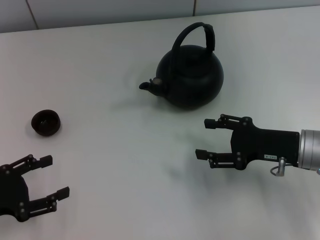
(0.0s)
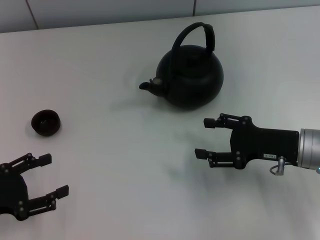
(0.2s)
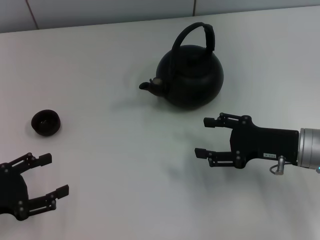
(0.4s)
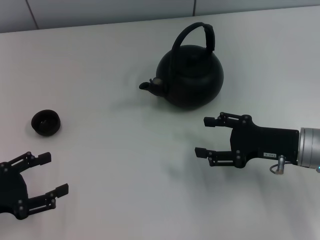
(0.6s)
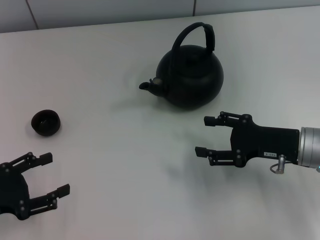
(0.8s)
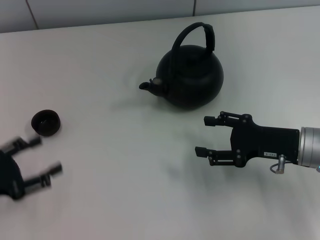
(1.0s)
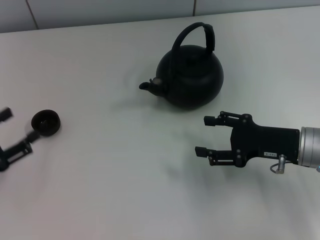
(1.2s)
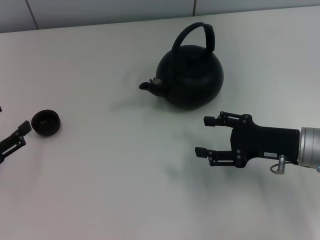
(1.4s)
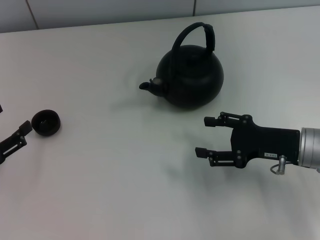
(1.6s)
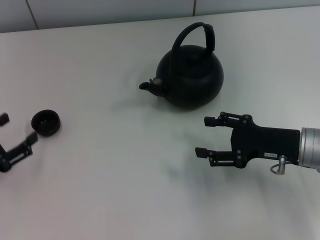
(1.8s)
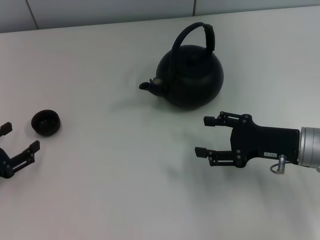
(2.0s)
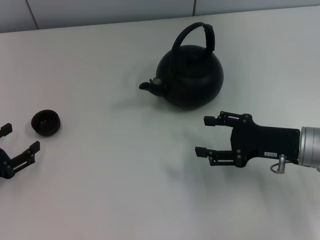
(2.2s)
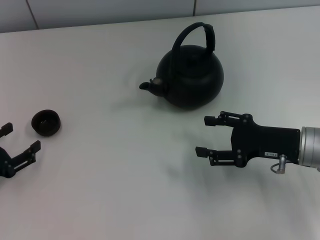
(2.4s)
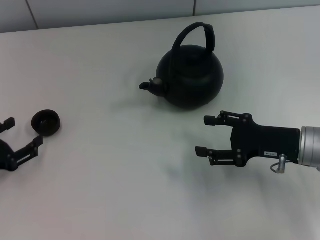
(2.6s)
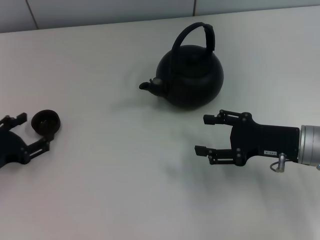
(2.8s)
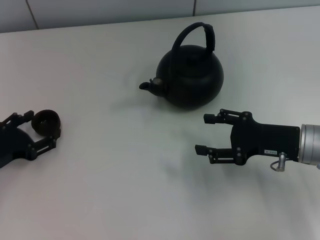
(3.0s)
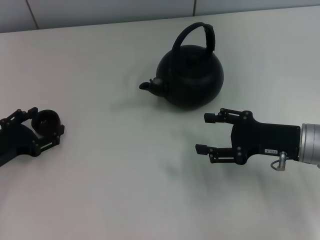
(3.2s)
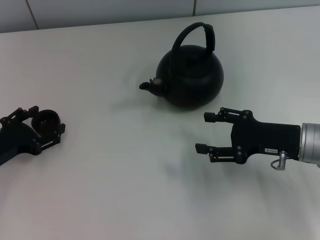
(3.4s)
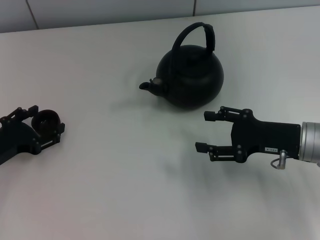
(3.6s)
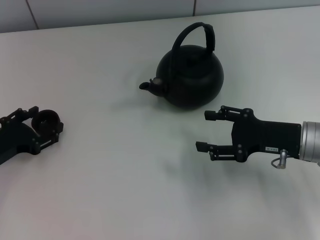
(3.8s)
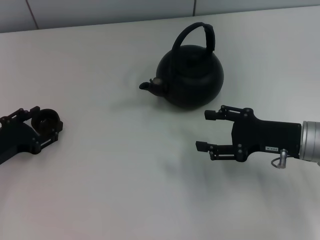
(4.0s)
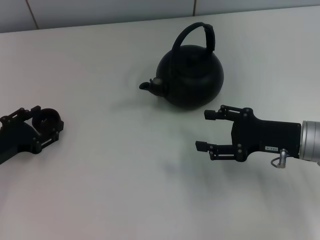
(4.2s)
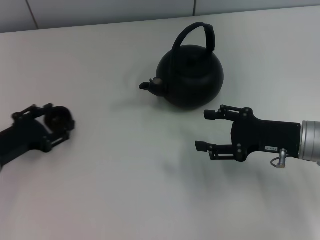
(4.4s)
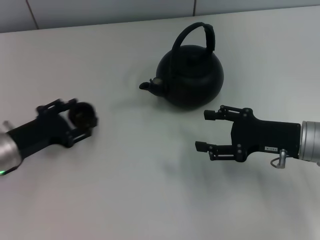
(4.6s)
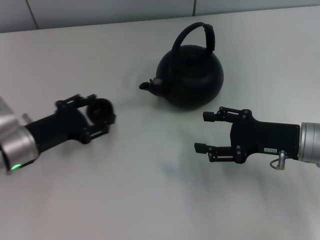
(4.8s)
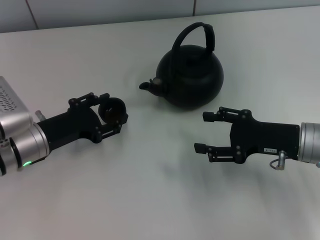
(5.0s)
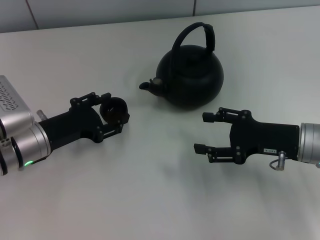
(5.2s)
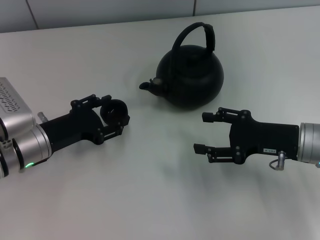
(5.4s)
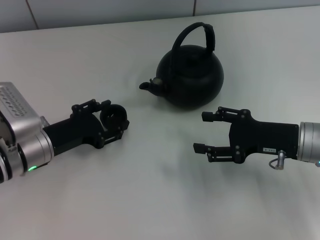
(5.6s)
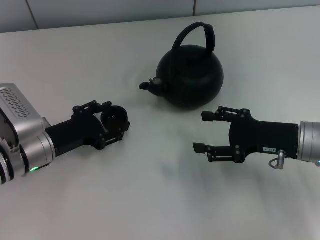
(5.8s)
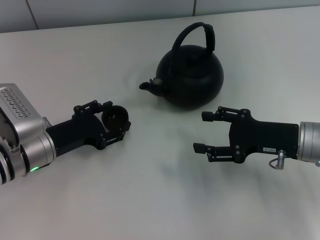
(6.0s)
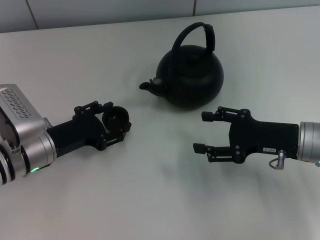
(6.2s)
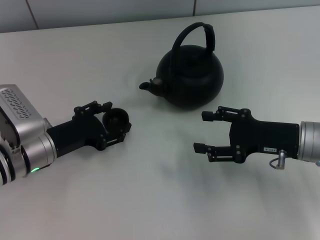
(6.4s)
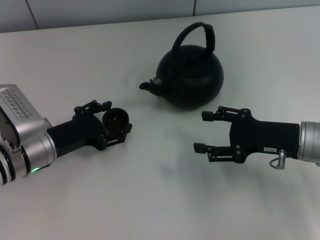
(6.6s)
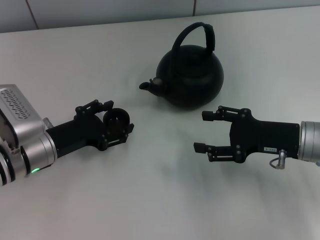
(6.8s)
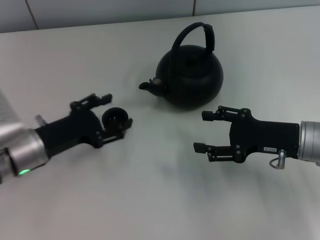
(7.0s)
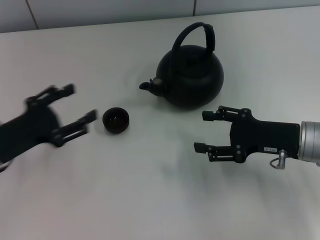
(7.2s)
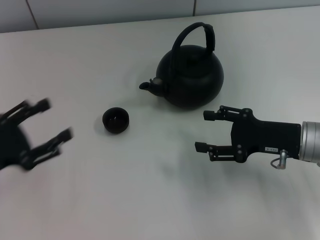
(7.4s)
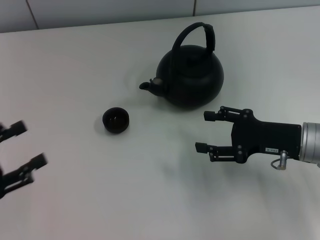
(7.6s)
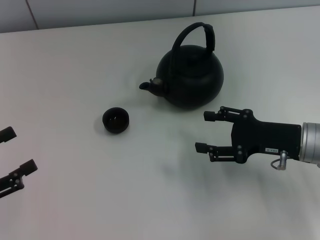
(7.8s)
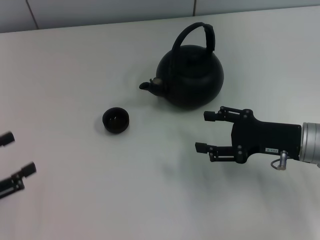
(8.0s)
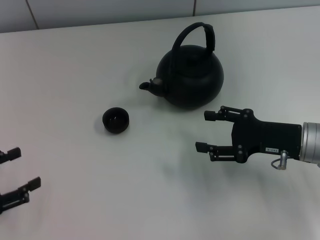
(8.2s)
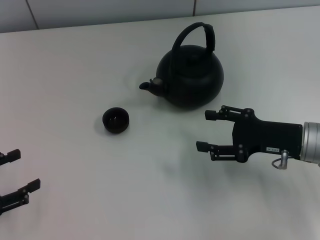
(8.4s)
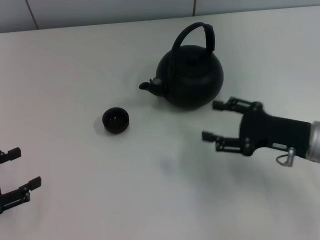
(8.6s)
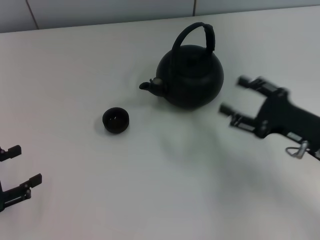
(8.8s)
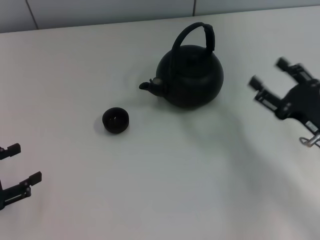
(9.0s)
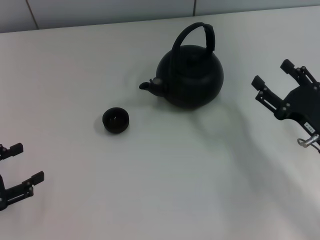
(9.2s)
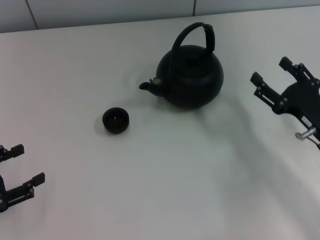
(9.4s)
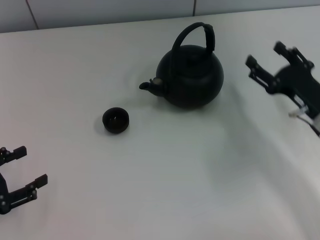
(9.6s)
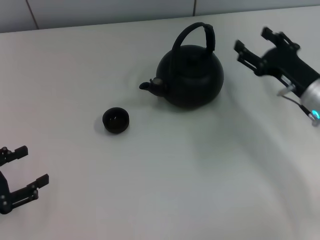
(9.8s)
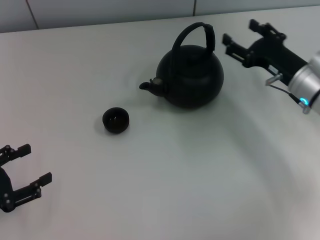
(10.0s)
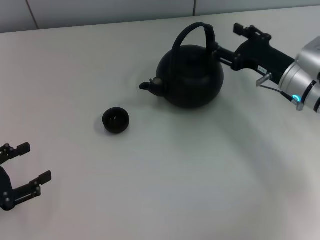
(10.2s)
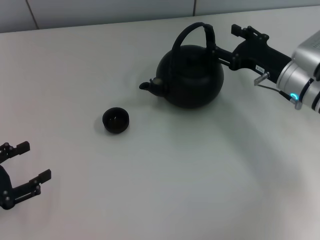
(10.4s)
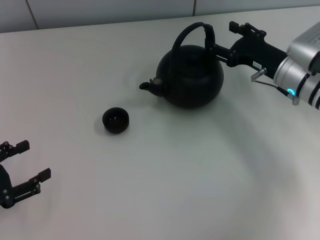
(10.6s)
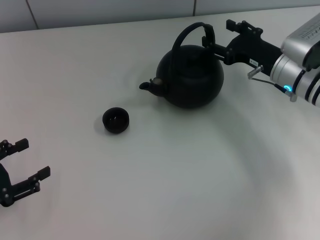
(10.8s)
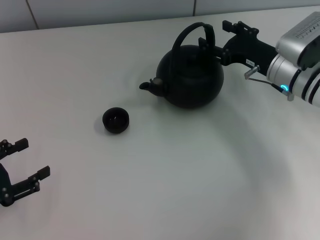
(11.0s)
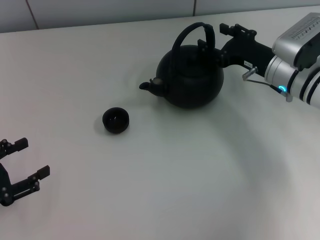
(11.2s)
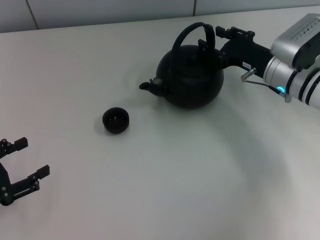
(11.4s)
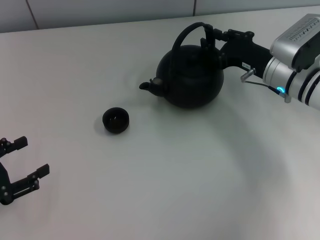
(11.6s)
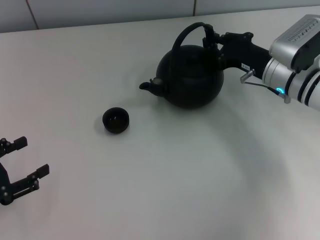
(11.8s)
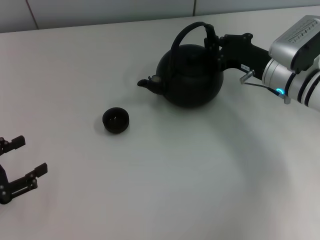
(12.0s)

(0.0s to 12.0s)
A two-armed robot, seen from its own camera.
Task of the whole recording: Grasp the handle of the teapot with one hand and pour tea into the teacup.
Step, 0.0s - 4.4s: Pick up the teacup with the left gripper.
Step, 4.6s - 7.2s: Place the teacup in the center of view with the left gripper.
1.6s - 3.0s: The left gripper ends up roughly 5 cm from where it was, and closes its fingers.
3.0s - 4.4s: The grippers stay close to where they were, moving slightly.
4.4s - 6.0s: The left gripper moves to the right, approximately 10 cm.
6.0s - 7.6s: The left gripper heads to the left and backward, covering approximately 15 cm, and opens.
7.6s - 9.0s: The right gripper ends up some 5 cm from where it was.
9.0s - 10.4s: The right gripper shifts approximately 15 cm forward.
10.4s - 12.0s: The right gripper closes.

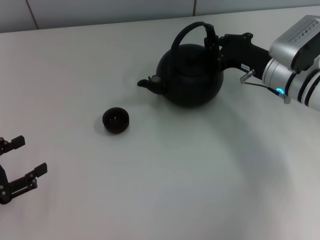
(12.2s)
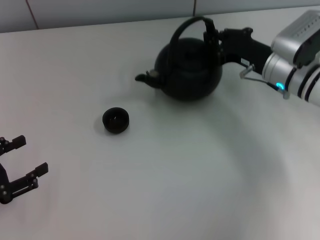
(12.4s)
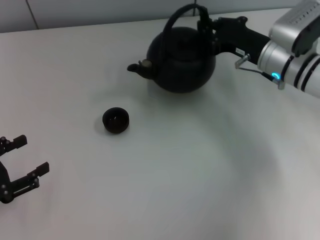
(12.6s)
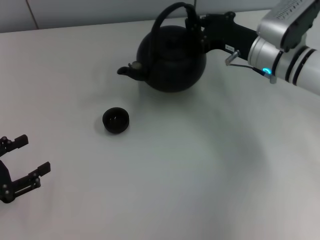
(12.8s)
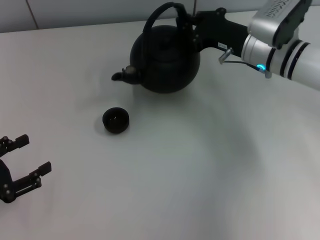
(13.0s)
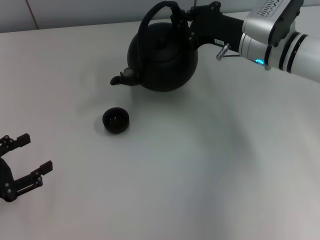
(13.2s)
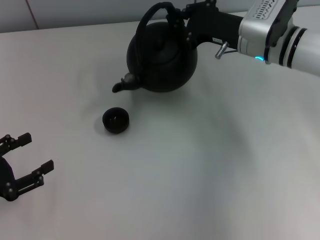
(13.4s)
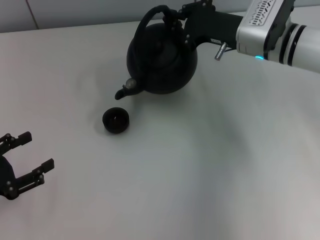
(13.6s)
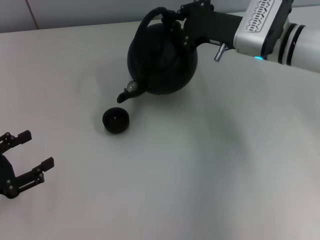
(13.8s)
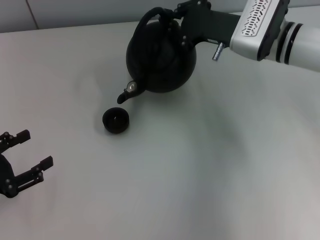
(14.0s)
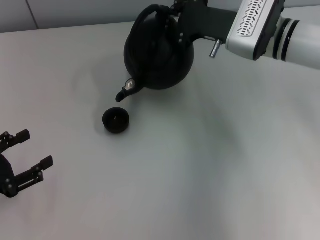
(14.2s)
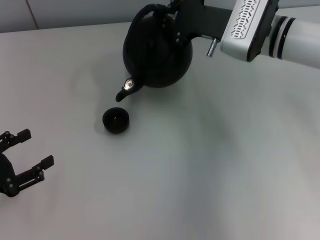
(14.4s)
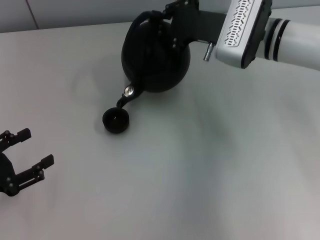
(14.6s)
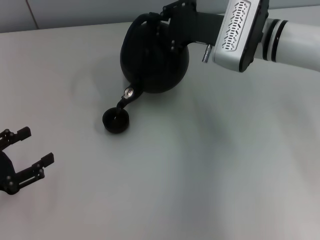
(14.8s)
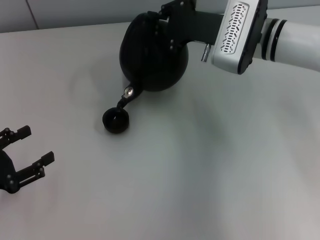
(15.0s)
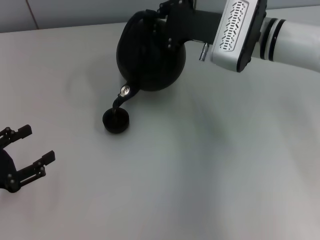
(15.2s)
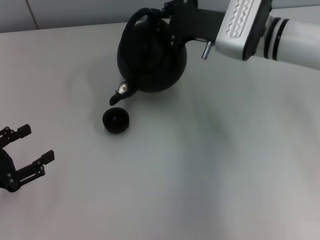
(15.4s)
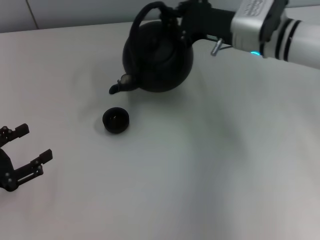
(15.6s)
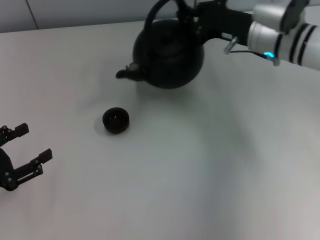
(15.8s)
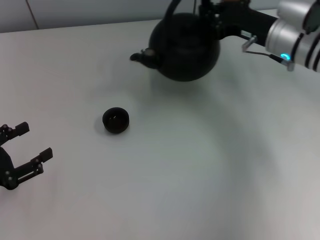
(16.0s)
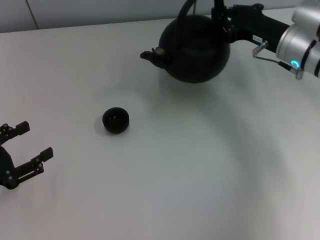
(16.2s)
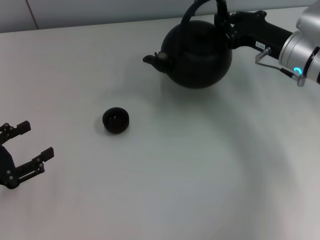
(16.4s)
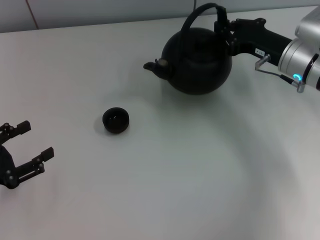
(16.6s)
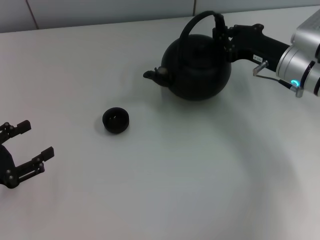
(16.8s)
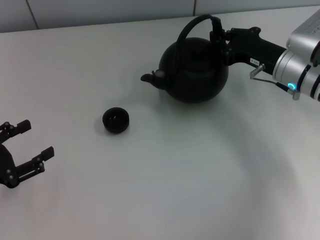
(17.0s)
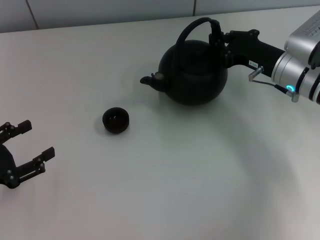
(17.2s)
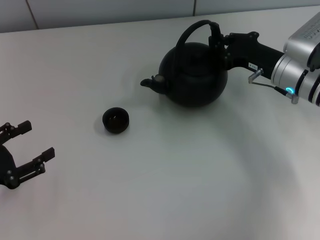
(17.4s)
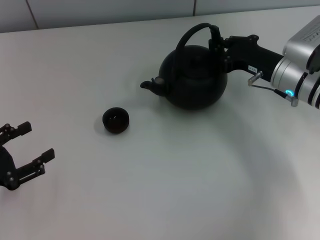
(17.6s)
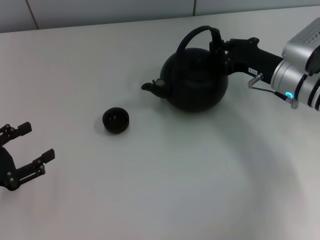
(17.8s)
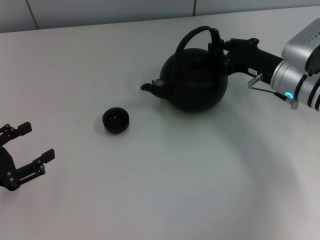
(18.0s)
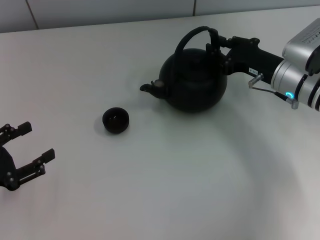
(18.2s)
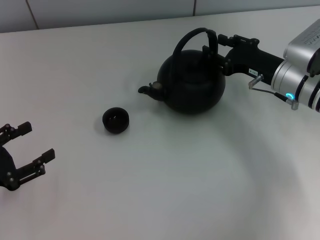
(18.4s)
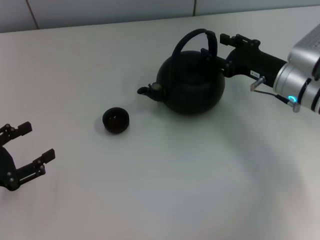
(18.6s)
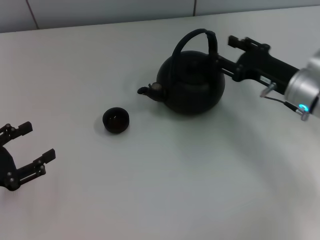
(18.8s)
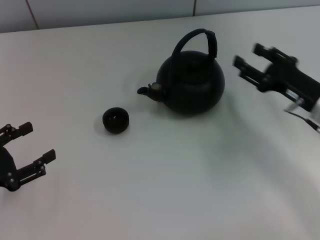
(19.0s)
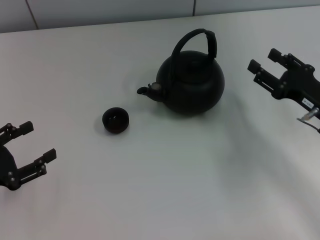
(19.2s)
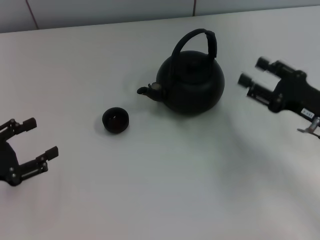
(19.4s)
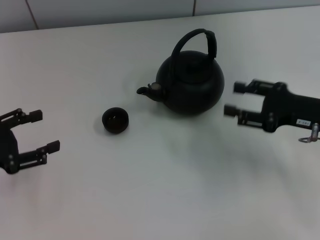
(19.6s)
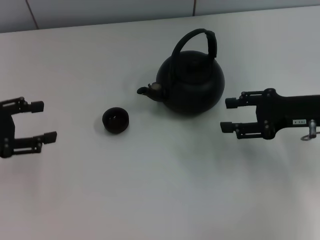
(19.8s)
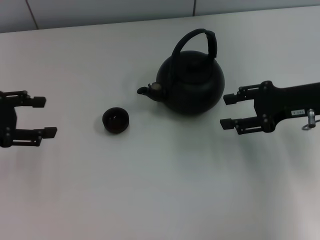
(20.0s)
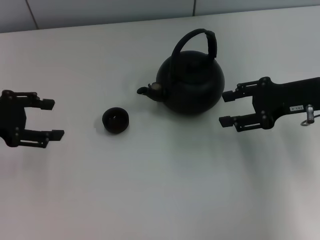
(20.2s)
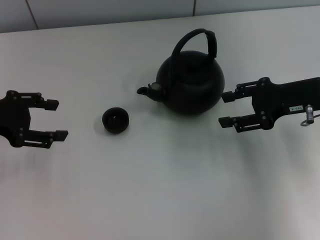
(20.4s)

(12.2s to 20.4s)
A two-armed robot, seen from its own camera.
Task of the whole recording: Grasp the handle of the teapot with one hand and pour tea into the teacup.
Step, 16.2s - 18.6s: Put down the teapot with the right gripper.
12.2s - 13.8s: The right gripper is displaced upward by about 5 cm.
13.8s - 15.4s: The grippers make only small movements.
15.4s - 17.2s: The right gripper goes roughly 10 cm to the right and downward.
17.2s - 18.8s: The right gripper opens.
18.8s - 20.4s: The left gripper is displaced forward and upward by about 15 cm, while the right gripper heads upward, covering some 5 cm.

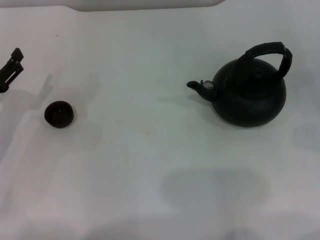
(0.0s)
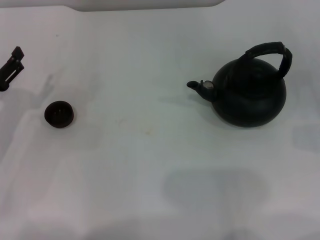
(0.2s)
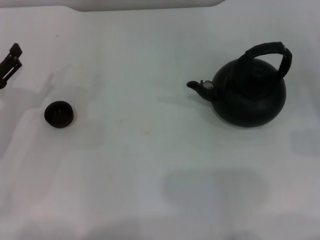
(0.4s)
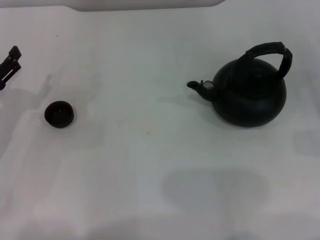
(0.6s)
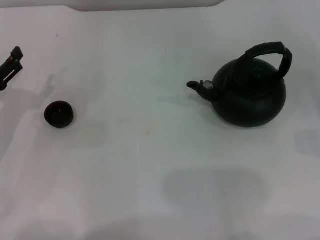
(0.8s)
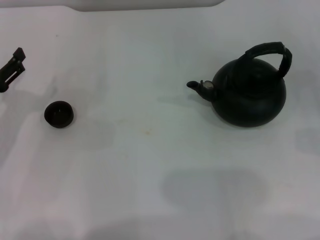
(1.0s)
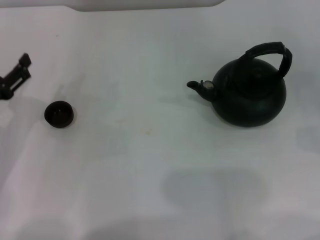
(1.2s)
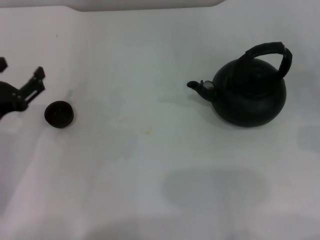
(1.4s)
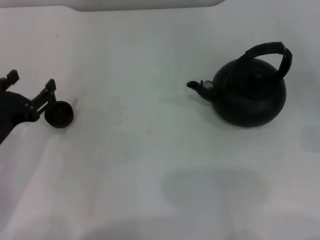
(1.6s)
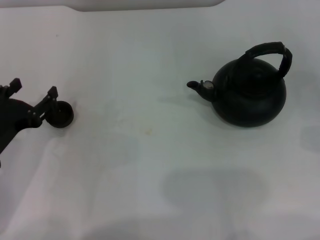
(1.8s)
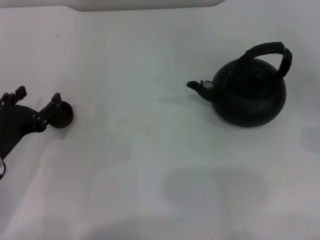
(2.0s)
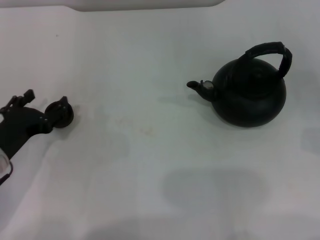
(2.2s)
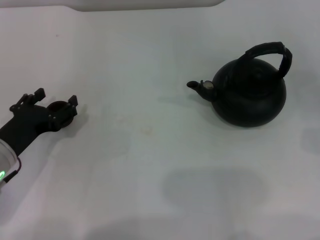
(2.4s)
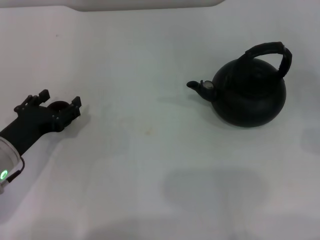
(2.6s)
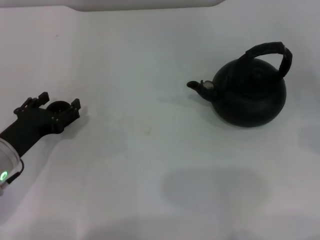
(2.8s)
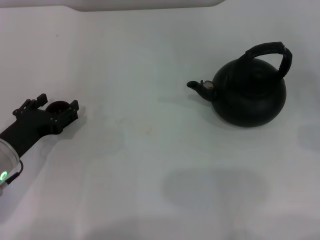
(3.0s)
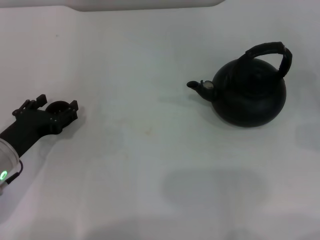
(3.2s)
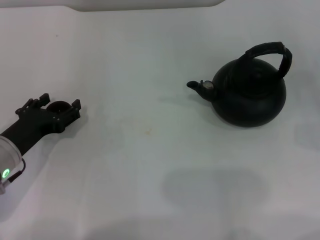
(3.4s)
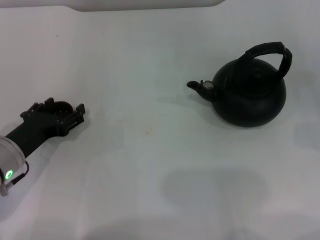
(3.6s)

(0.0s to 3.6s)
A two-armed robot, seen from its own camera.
Task of the whole recording: Grasp the handle of the teapot with one hand and pour tea into the teacup.
0.0s - 1.8s: The left gripper shifts approximately 5 cm to the right.
1.8s - 3.6s: The left gripper moves about 5 cm.
